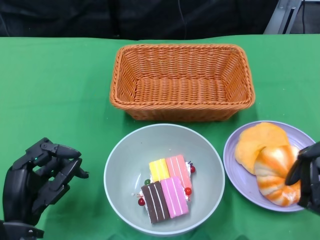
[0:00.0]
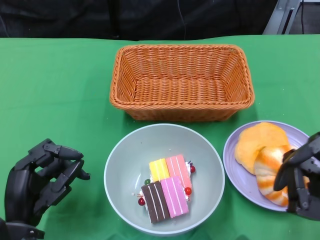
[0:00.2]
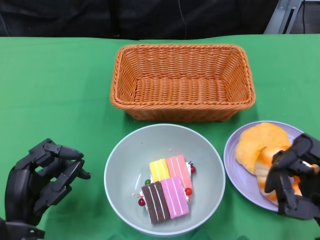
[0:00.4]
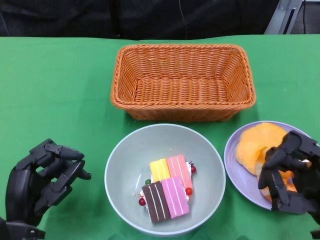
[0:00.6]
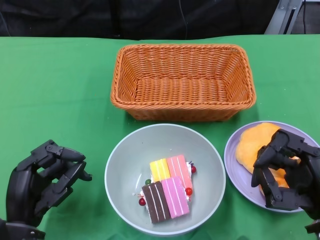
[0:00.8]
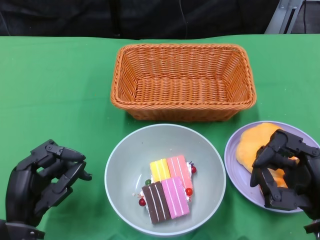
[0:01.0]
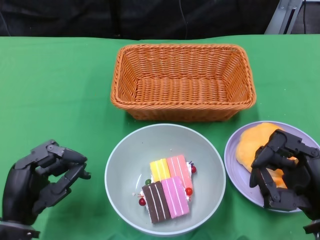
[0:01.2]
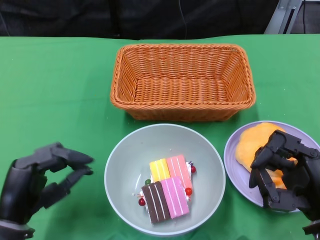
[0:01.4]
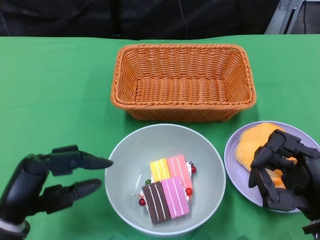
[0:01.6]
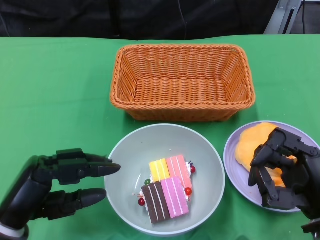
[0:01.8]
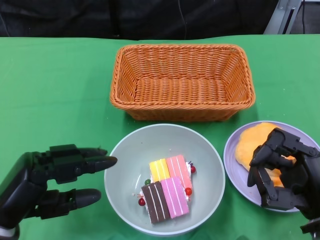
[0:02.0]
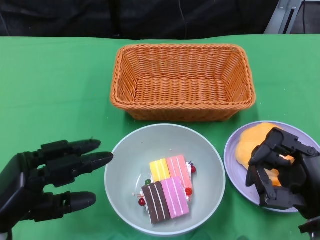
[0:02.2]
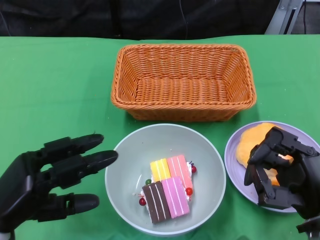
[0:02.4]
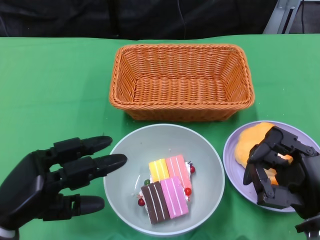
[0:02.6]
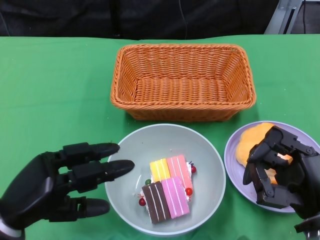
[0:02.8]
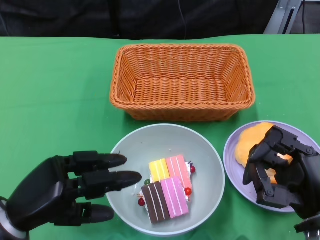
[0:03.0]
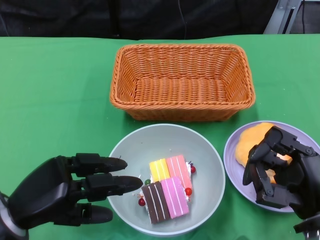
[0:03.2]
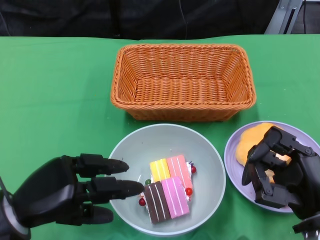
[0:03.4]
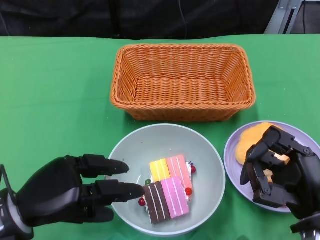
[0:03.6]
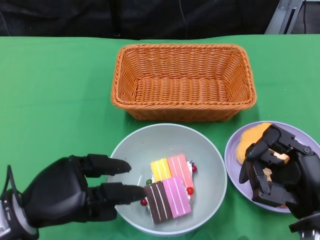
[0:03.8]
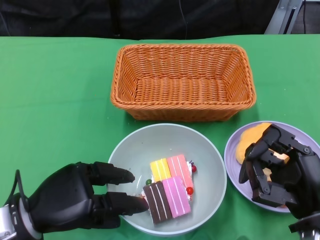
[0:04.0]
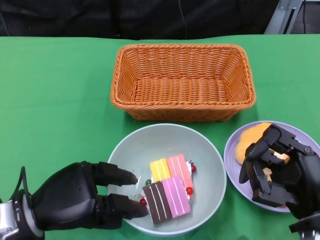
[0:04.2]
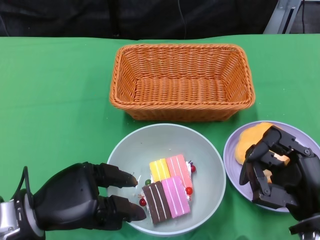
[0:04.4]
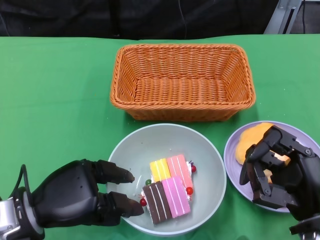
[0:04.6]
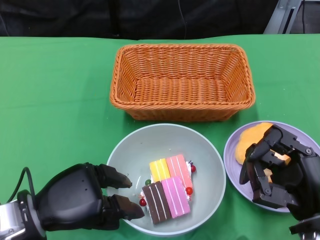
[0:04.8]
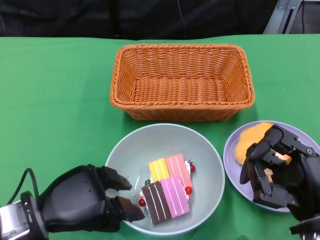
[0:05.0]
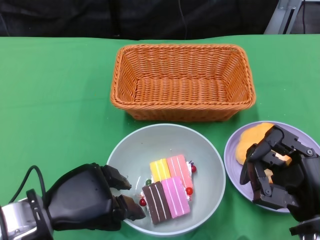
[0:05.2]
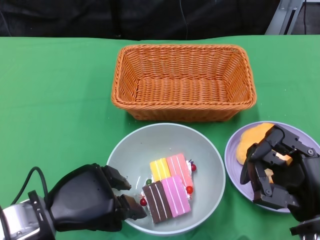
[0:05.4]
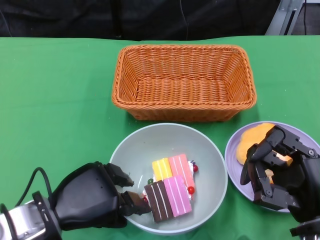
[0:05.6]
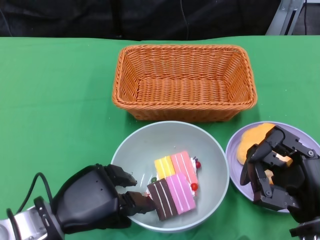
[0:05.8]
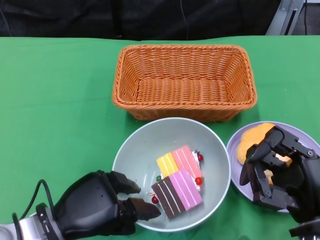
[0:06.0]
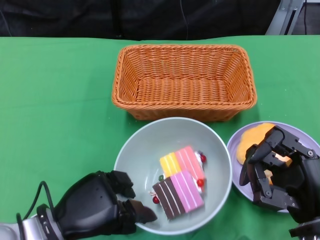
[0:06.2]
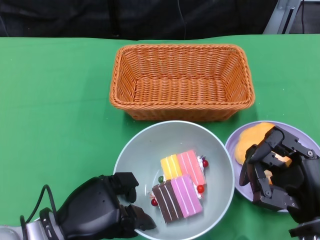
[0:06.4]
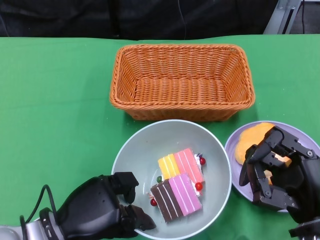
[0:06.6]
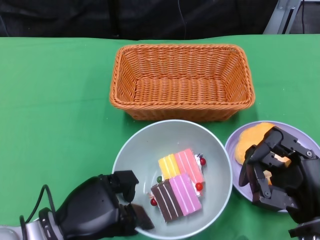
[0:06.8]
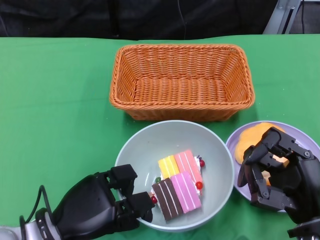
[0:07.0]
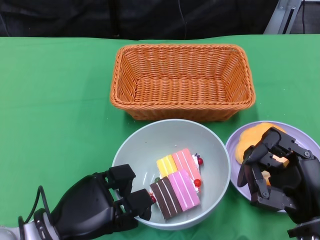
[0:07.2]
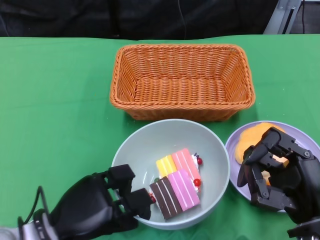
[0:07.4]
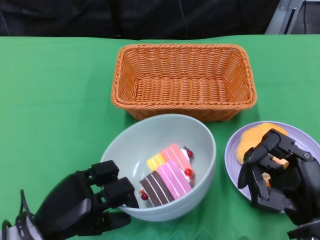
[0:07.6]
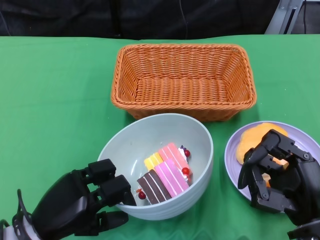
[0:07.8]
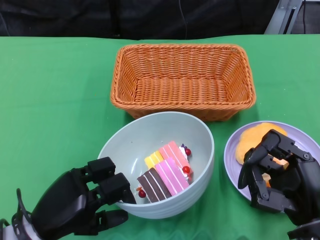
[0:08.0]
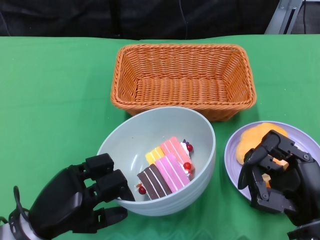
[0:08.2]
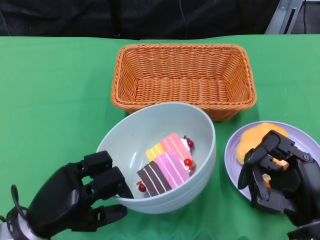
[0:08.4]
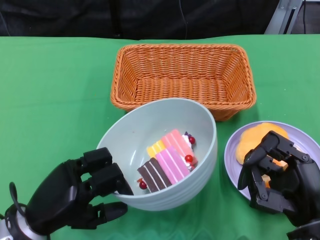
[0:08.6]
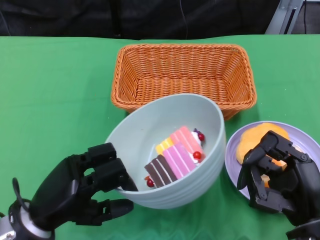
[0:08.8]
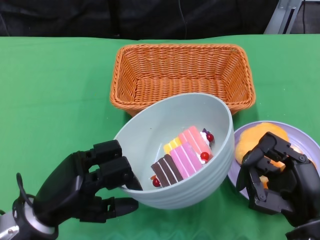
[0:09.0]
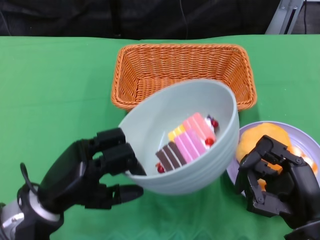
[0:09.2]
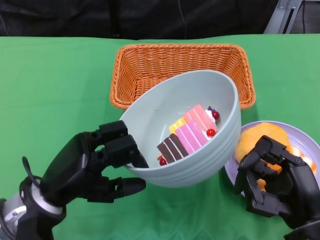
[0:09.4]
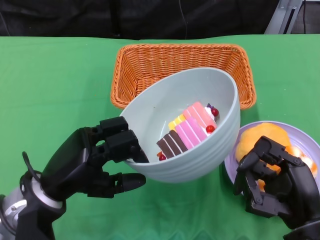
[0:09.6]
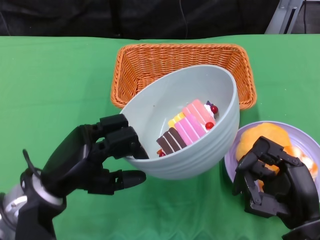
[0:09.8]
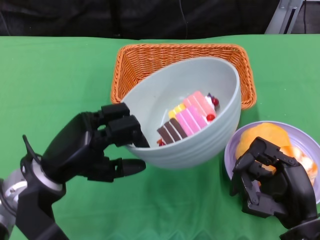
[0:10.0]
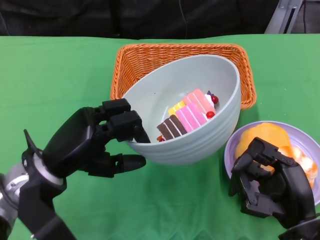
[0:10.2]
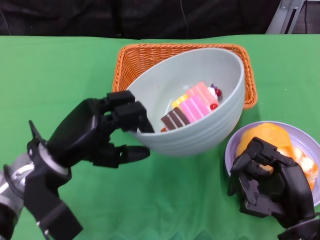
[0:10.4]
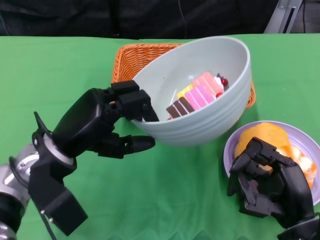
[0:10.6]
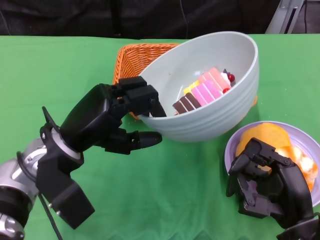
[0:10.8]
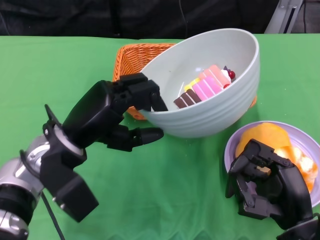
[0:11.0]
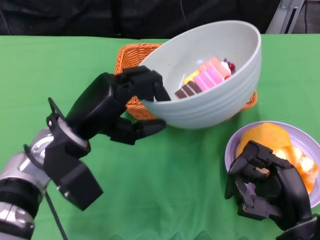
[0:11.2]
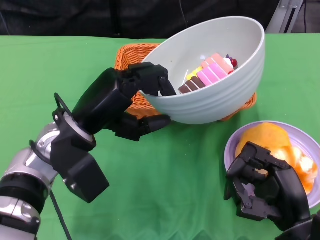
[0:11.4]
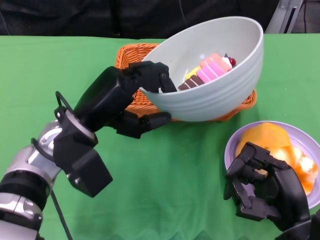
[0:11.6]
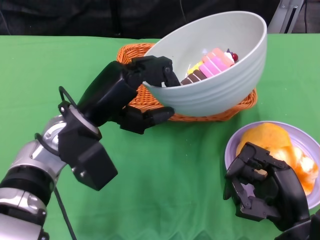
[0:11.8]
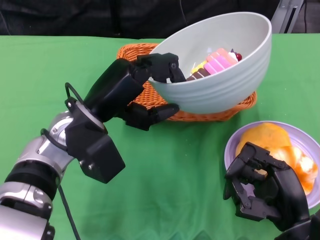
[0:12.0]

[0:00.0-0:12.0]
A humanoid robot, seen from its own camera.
Step, 0:00.8 to 0:07.0: Grasp the bowl with the left gripper.
0:04.4 to 0:06.0: There are only small adjustments of the hands.
0:09.0 to 0:10.4: The left hand moves forward, roughly 5 cm.
0:10.4 to 0:12.0: The left hand goes approximately 5 cm to the right.

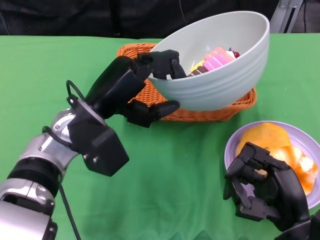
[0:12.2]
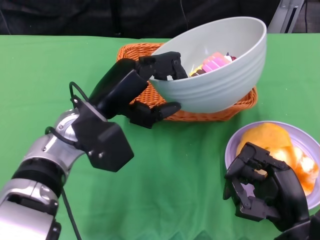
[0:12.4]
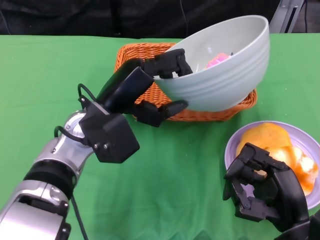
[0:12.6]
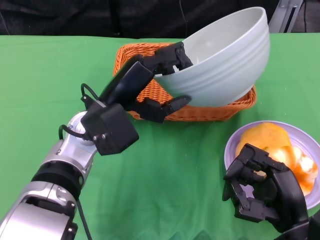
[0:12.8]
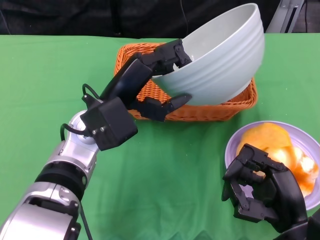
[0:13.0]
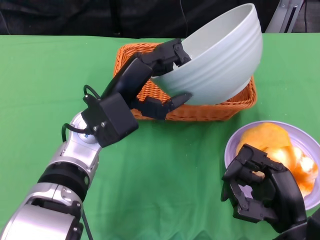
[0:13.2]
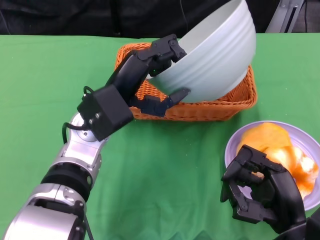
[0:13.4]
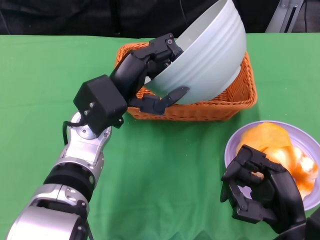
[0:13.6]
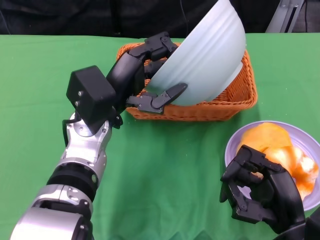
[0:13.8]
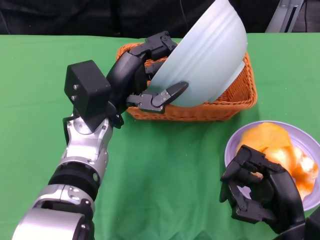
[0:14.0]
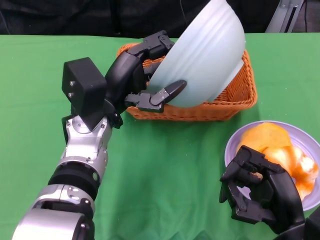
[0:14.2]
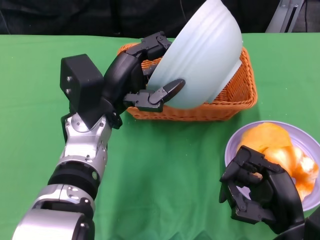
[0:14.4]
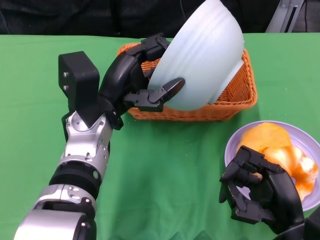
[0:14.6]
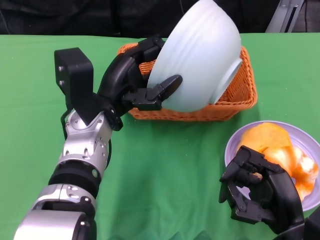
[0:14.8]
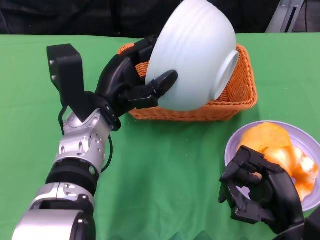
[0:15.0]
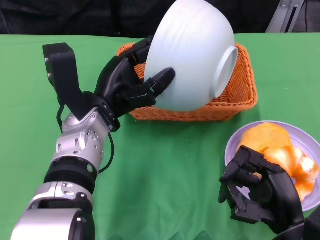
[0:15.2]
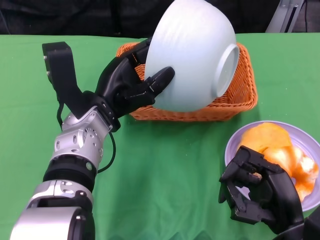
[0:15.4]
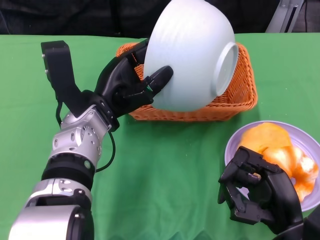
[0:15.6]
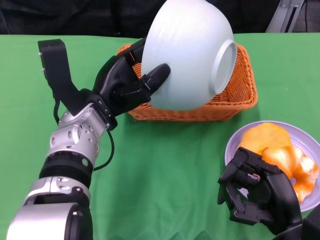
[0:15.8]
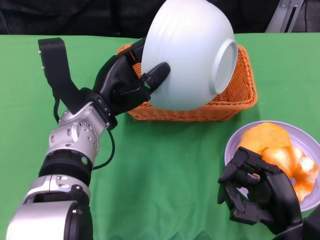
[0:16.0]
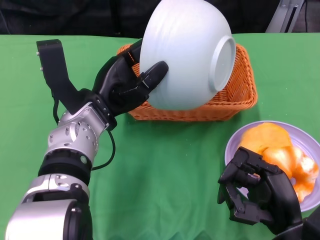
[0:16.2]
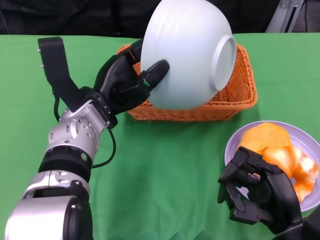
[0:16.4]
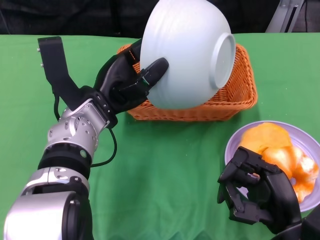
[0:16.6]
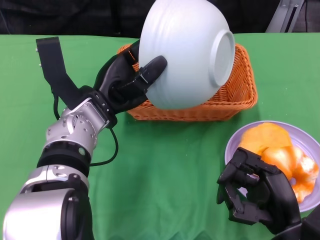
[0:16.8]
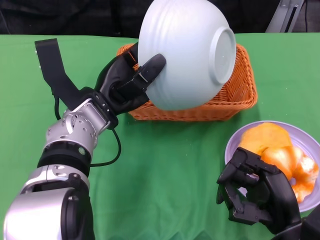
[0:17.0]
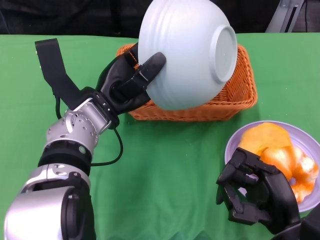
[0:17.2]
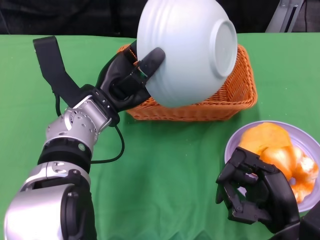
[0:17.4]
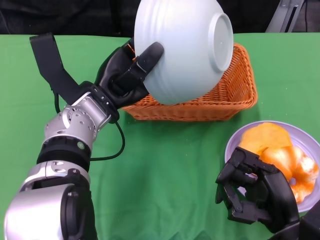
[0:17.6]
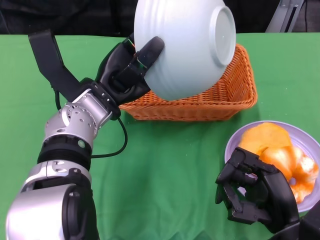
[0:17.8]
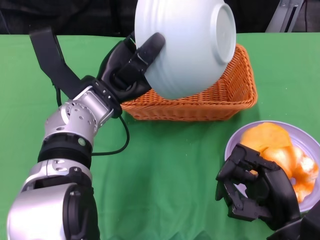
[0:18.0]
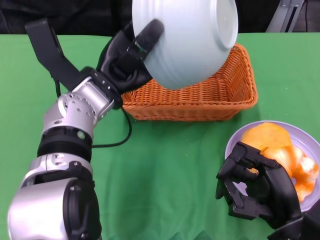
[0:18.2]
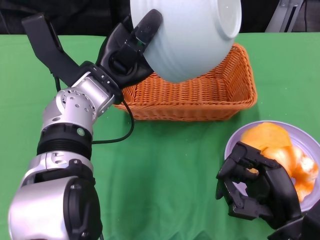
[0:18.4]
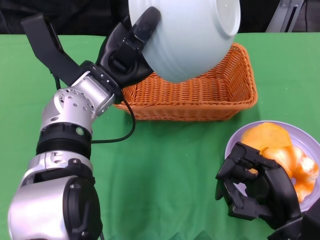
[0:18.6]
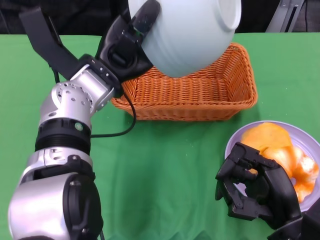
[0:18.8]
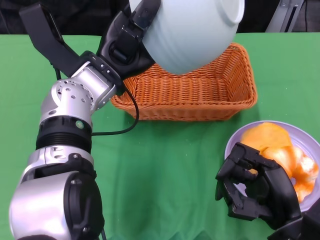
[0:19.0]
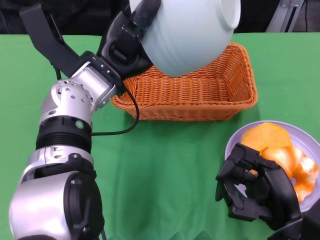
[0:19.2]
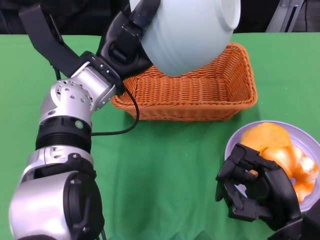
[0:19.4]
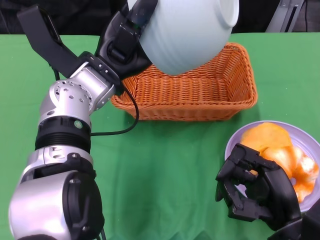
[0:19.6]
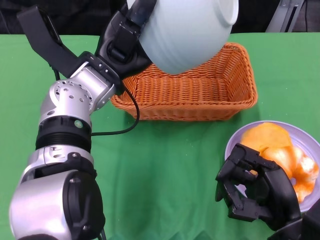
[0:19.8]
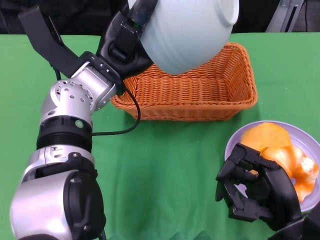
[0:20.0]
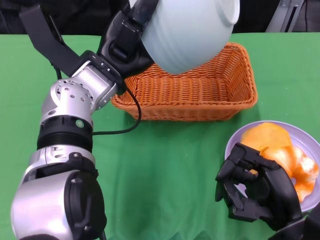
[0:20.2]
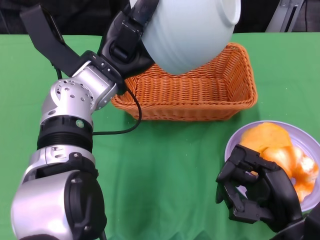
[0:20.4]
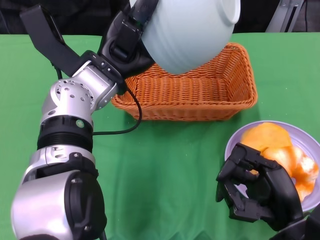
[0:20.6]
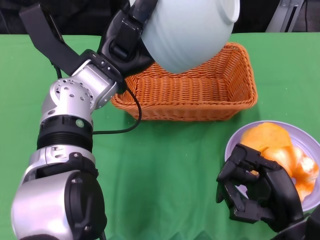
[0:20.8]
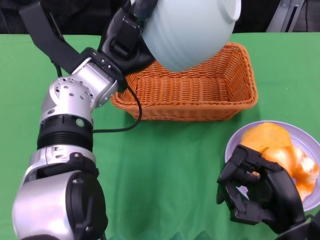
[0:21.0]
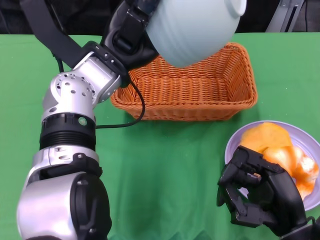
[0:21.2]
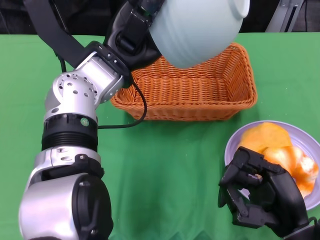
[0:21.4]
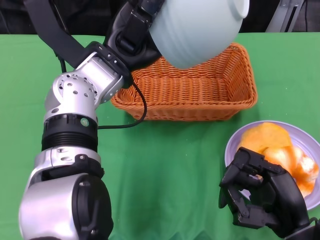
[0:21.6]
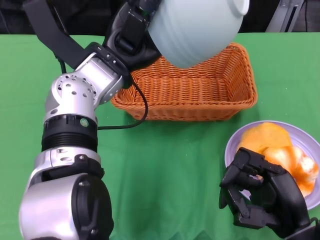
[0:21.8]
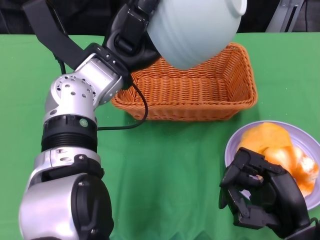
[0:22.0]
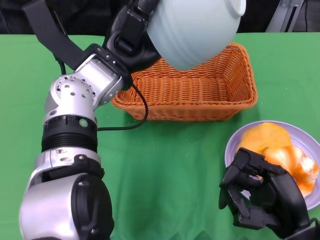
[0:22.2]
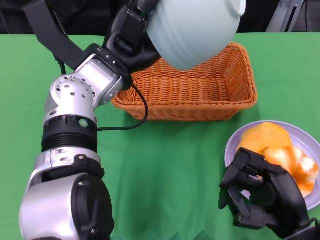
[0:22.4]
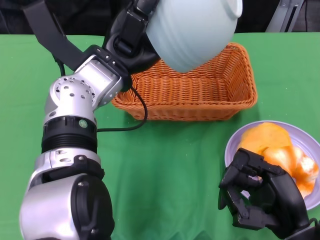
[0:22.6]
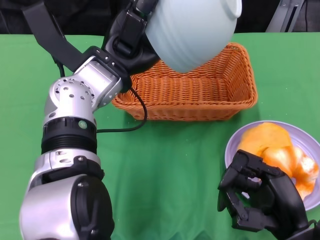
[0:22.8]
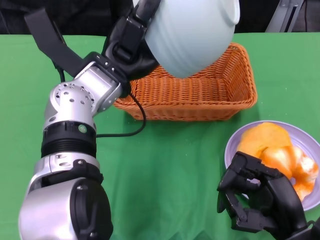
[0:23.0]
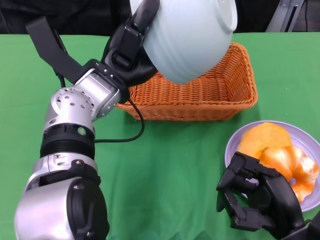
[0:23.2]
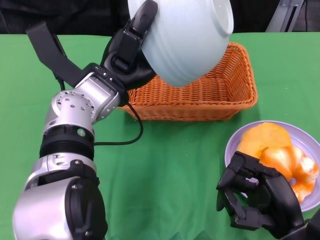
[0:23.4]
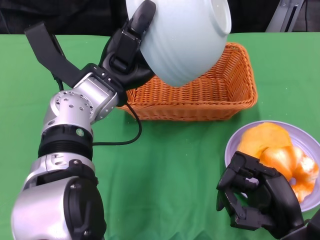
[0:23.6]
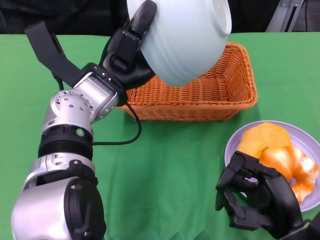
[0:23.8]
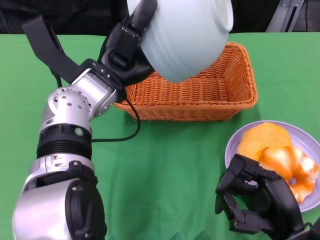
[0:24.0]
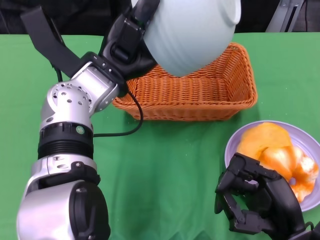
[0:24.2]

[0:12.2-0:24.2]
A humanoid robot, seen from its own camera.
0:15.2 to 0:16.6: There are only small adjustments of the hands.
0:19.8 to 0:24.2: There are only small adjustments of the hands.
